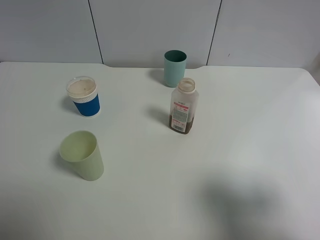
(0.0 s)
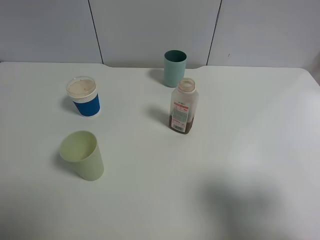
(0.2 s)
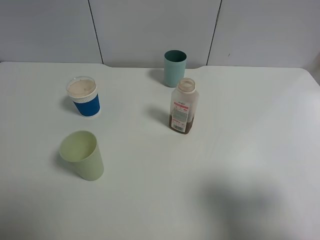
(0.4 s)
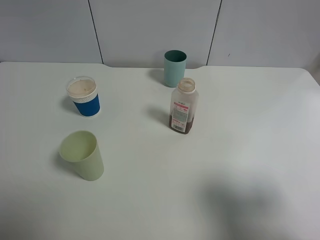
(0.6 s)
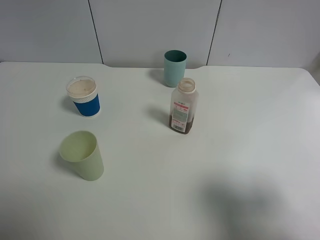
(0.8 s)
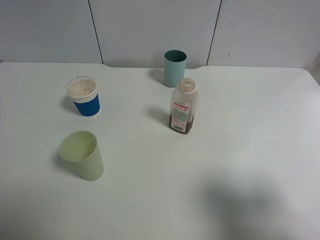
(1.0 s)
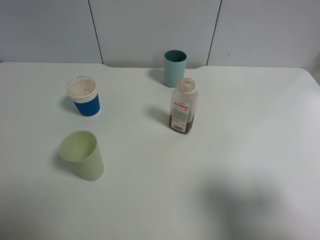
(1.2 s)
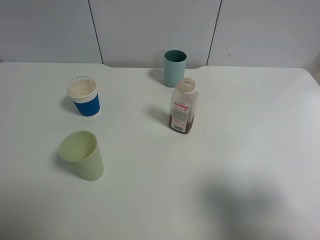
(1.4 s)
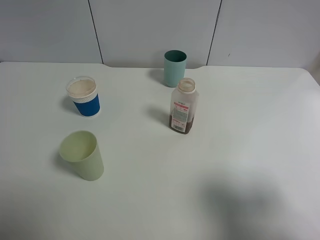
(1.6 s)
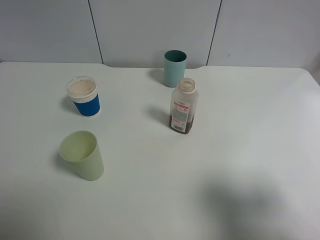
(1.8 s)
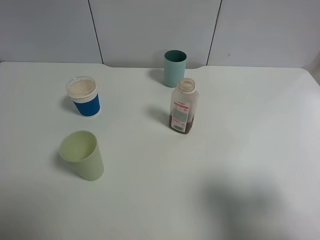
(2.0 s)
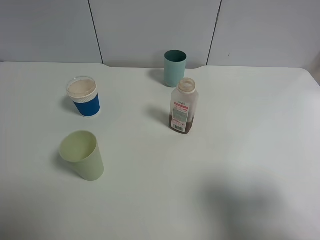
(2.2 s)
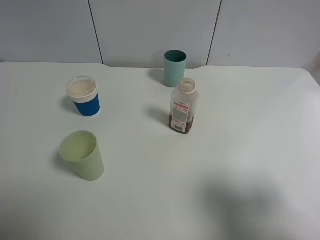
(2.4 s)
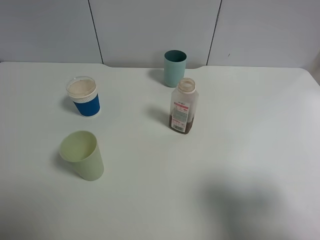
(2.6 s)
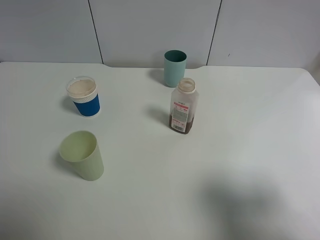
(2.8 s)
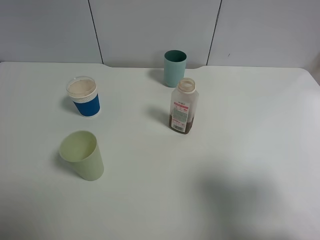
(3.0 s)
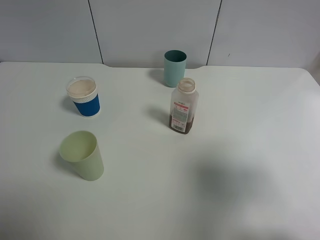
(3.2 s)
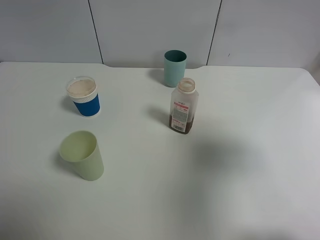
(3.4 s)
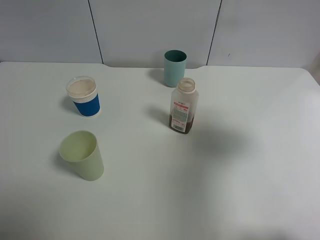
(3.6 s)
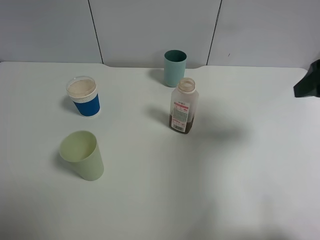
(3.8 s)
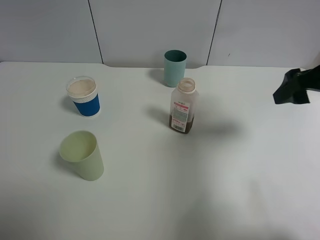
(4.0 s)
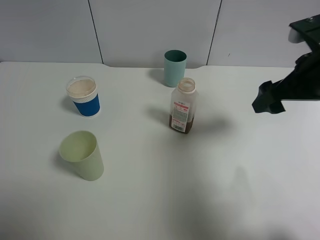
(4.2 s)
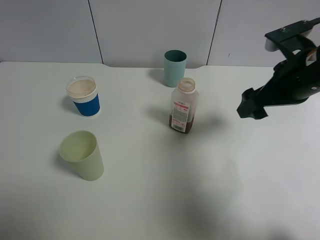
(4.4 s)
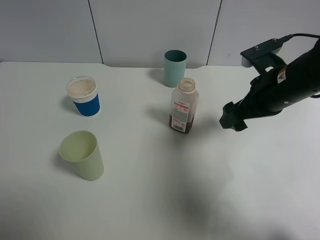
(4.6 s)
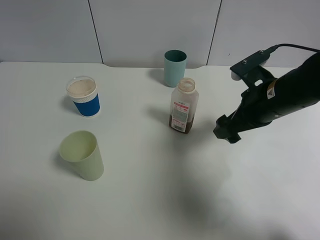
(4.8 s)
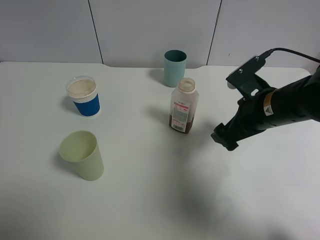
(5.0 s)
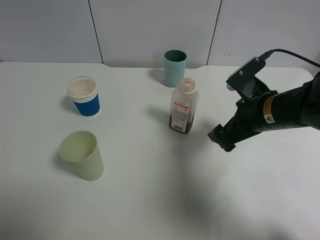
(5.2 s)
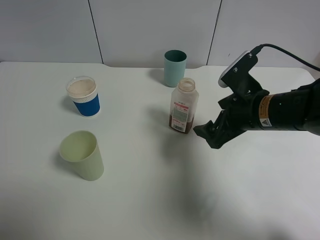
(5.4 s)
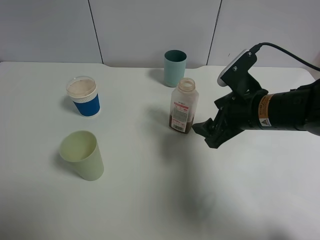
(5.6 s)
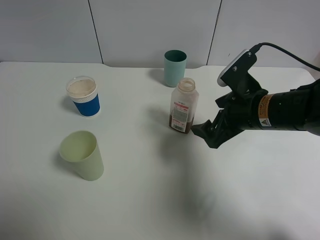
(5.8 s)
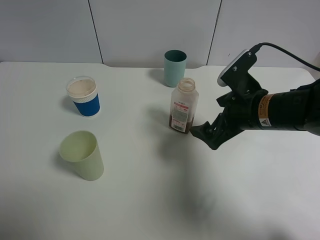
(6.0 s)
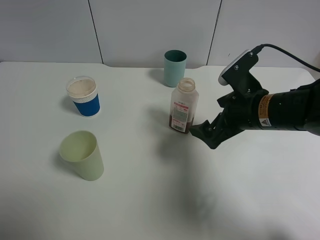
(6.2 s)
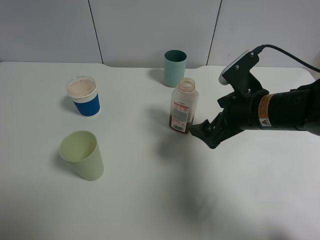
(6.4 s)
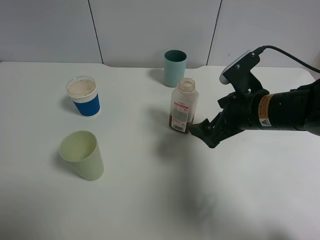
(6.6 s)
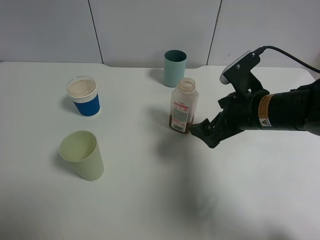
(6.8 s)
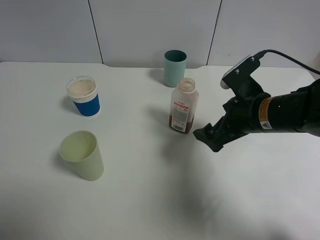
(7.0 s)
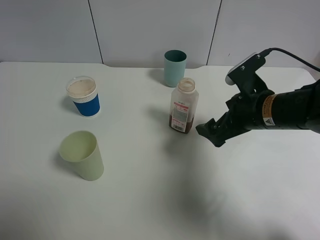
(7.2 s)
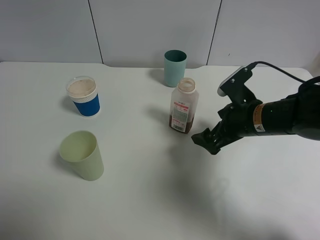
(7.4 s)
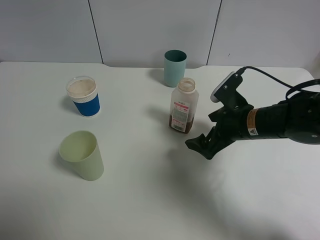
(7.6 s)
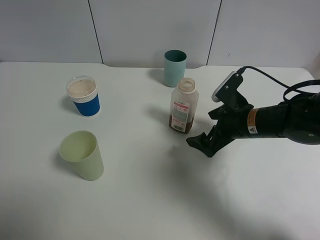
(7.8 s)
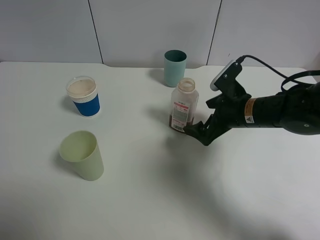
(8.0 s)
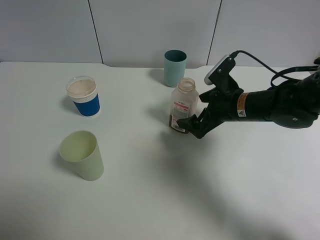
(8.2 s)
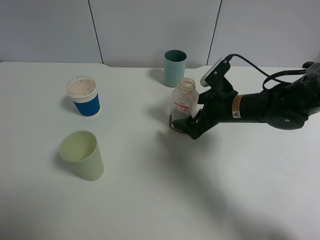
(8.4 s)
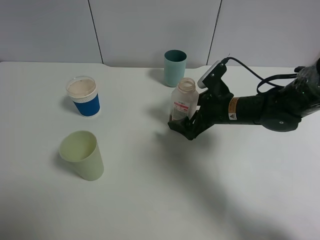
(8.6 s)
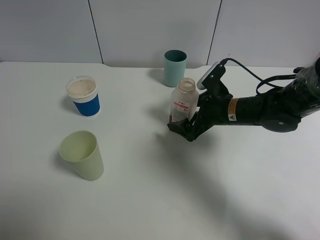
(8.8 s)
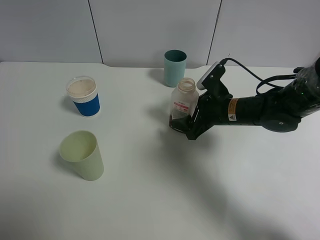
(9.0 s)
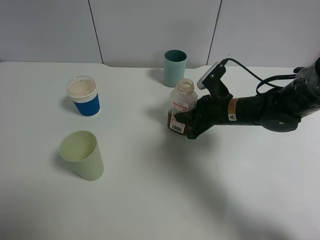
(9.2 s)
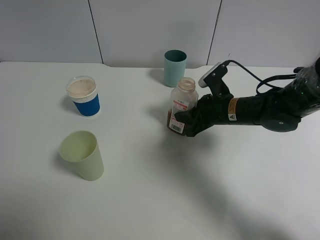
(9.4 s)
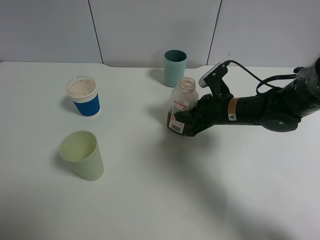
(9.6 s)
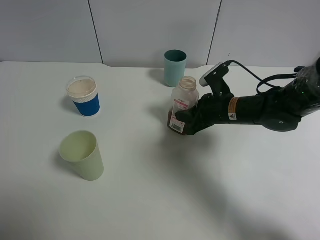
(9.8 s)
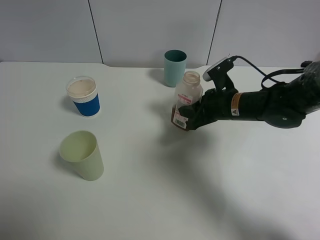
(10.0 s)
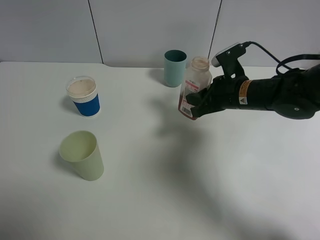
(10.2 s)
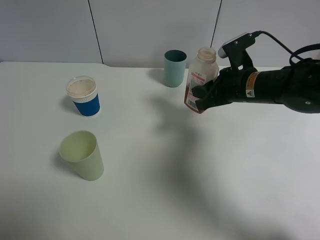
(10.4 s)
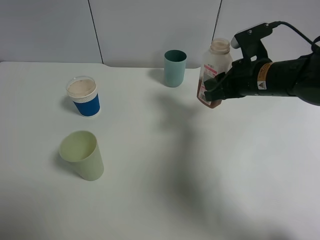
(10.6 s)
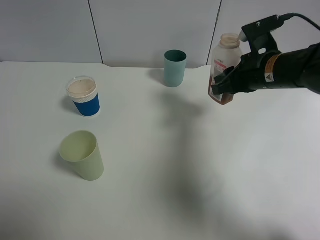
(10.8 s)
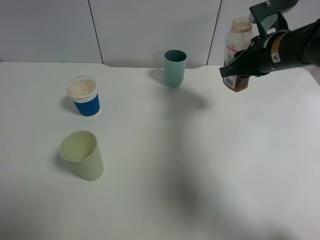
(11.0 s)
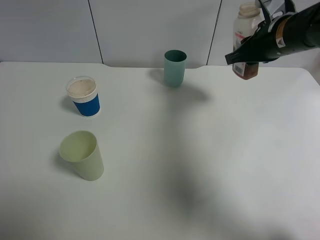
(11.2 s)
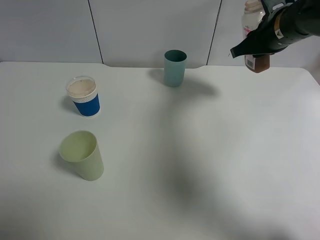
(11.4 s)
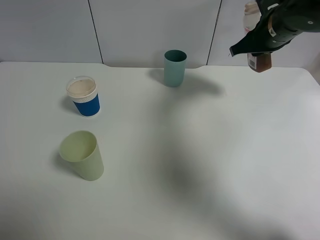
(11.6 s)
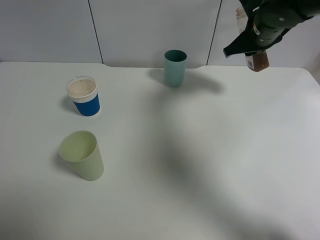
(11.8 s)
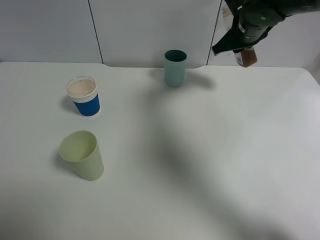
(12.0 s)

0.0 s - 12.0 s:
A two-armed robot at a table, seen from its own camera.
Task of the whole recording: use a gripper to hold the bottle of the drink and pour it into a random cup.
Step, 0.0 s - 9.2 s: Grasp the cranberry juice bottle with the right gripper.
0.0 s - 1.6 s: Both grippers stay put.
3.0 s - 4.4 s: The right gripper shifts some 20 cm forward.
4.4 s - 6.0 s: The right gripper goes approximately 10 cm downward and to the left.
6.0 s - 7.6 s: The right gripper moves downward, roughly 5 cm.
7.6 s - 9.0 s: The right gripper goes some 5 cm forward, and closes its fingers.
9.0 s - 10.4 s: The right gripper heads upward, covering about 5 cm, and closes.
10.4 s - 12.0 s: The right gripper heads forward and upward, covering approximately 15 cm.

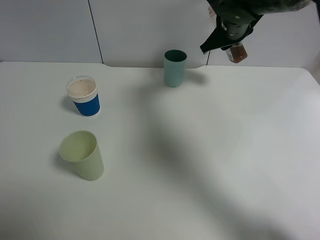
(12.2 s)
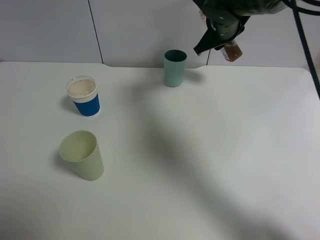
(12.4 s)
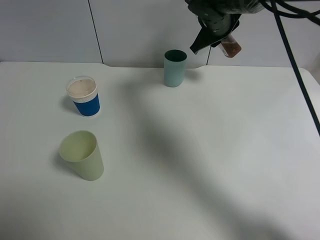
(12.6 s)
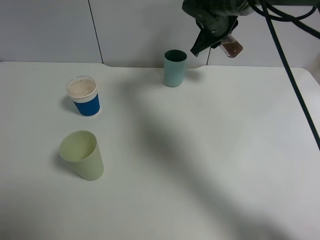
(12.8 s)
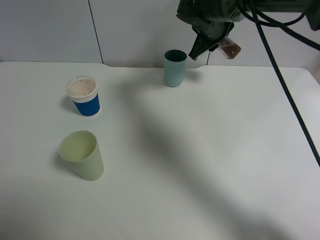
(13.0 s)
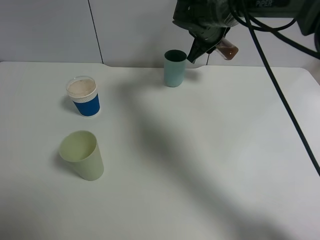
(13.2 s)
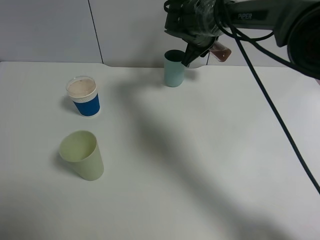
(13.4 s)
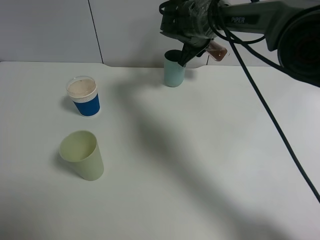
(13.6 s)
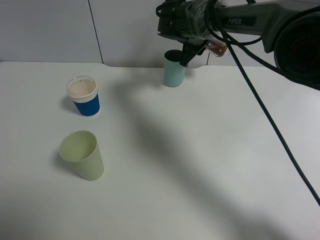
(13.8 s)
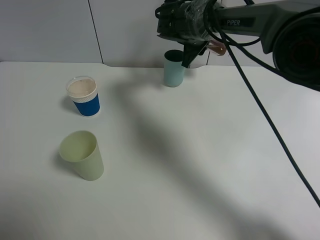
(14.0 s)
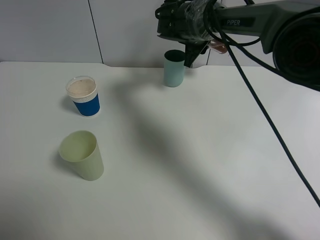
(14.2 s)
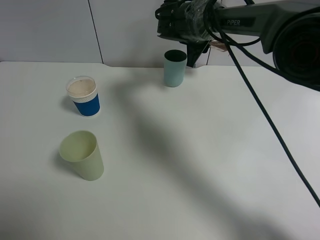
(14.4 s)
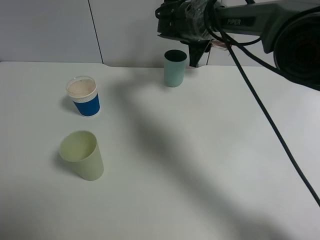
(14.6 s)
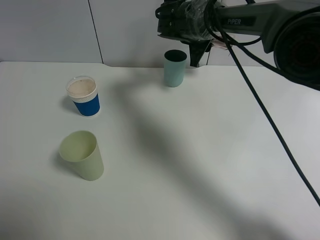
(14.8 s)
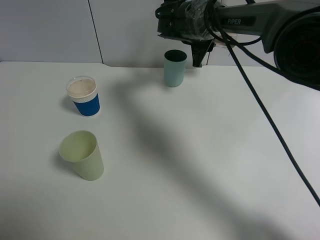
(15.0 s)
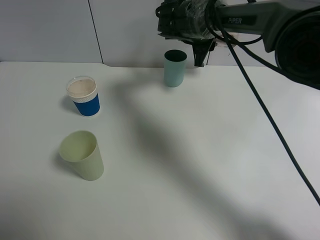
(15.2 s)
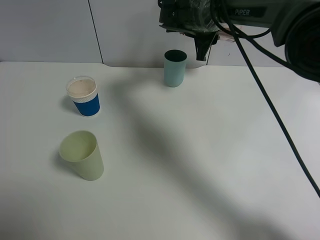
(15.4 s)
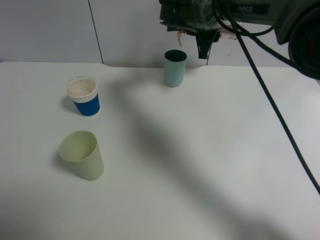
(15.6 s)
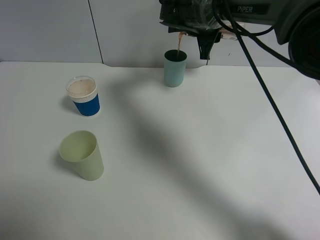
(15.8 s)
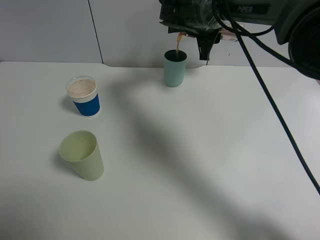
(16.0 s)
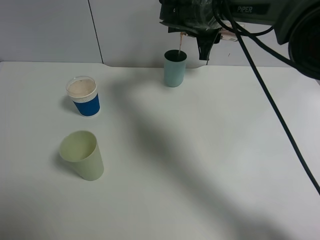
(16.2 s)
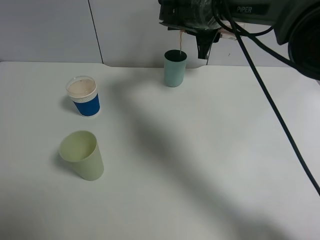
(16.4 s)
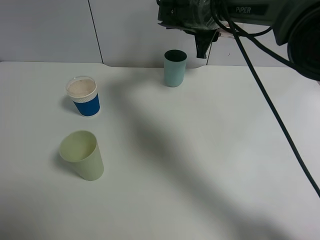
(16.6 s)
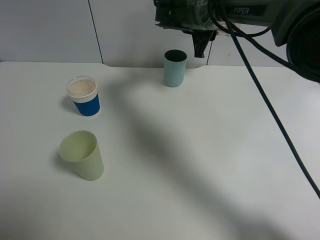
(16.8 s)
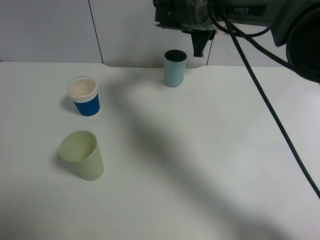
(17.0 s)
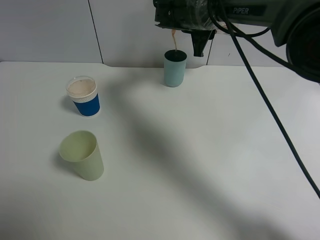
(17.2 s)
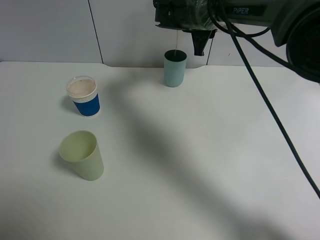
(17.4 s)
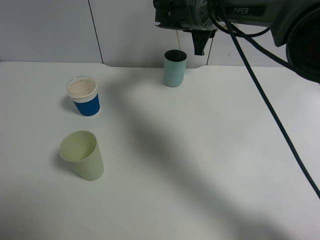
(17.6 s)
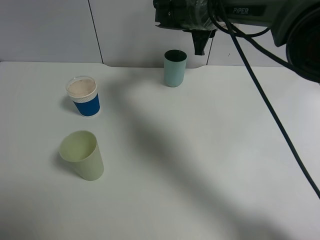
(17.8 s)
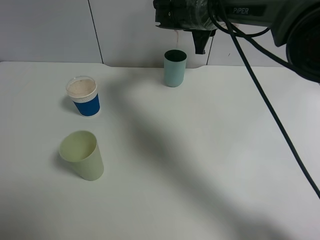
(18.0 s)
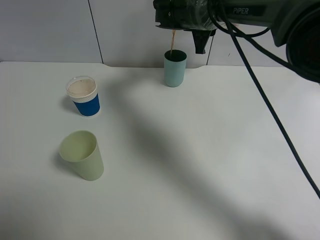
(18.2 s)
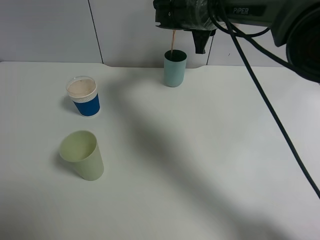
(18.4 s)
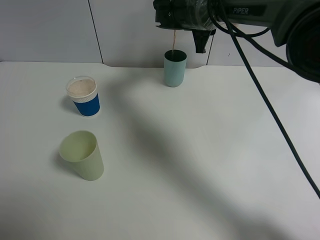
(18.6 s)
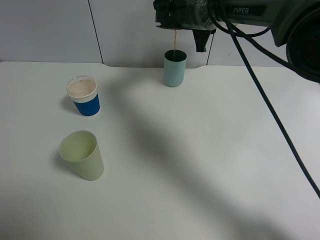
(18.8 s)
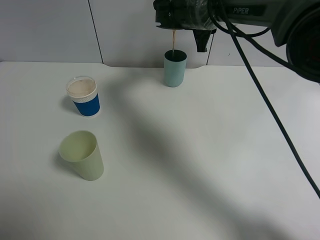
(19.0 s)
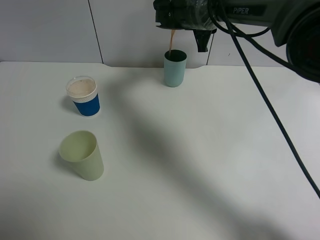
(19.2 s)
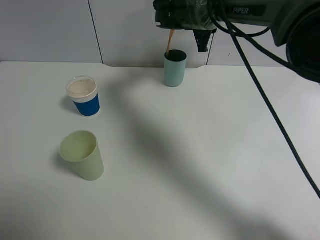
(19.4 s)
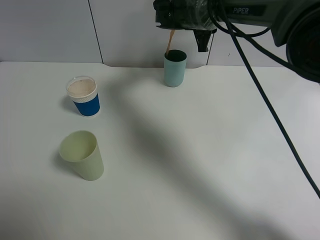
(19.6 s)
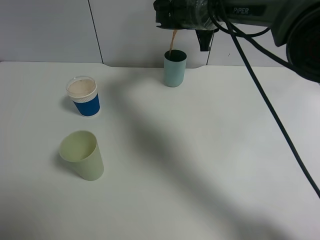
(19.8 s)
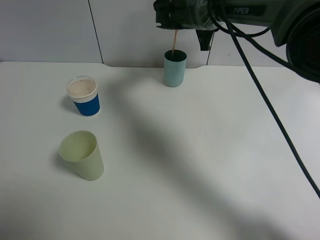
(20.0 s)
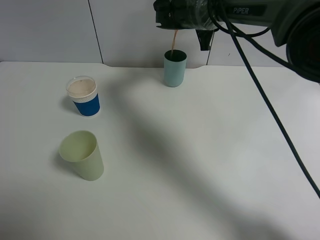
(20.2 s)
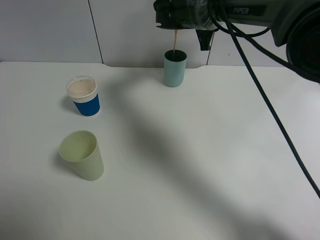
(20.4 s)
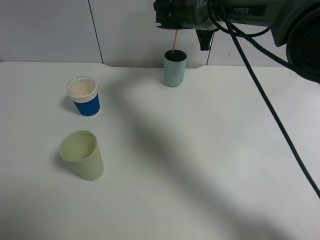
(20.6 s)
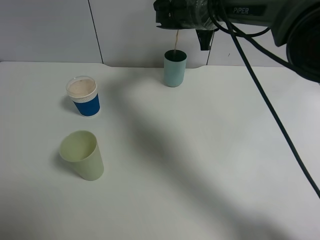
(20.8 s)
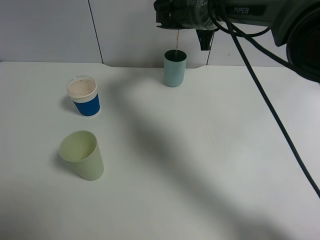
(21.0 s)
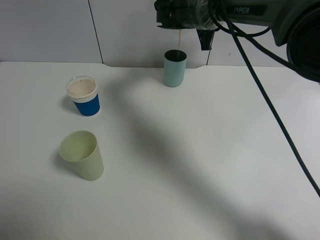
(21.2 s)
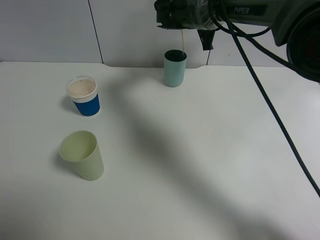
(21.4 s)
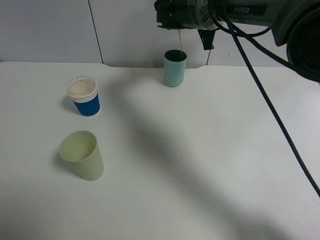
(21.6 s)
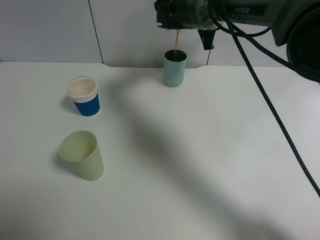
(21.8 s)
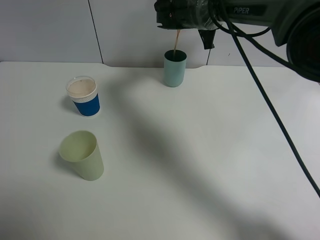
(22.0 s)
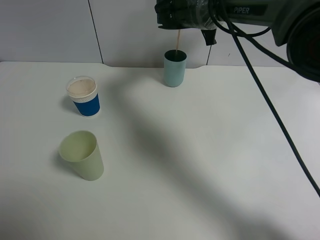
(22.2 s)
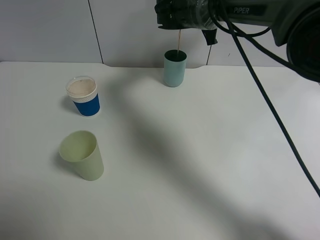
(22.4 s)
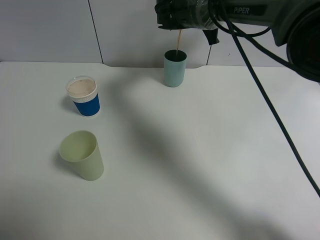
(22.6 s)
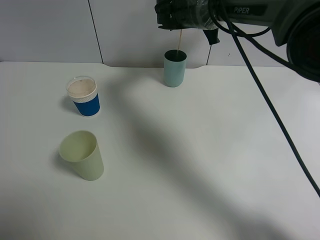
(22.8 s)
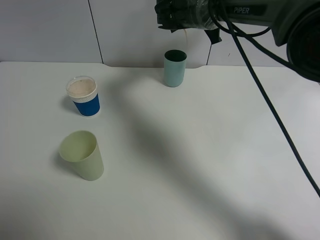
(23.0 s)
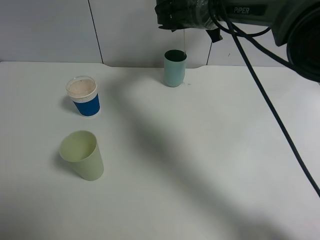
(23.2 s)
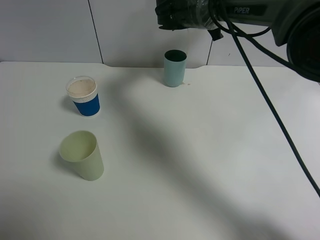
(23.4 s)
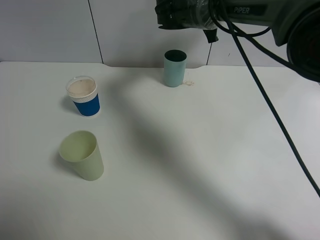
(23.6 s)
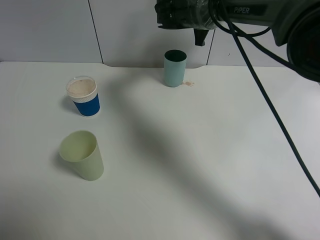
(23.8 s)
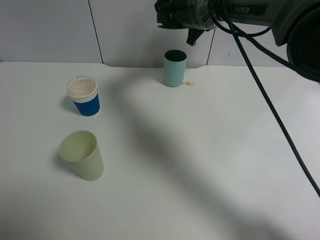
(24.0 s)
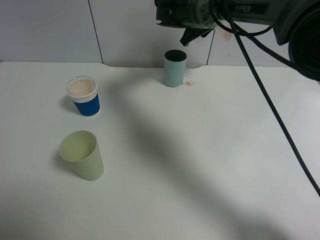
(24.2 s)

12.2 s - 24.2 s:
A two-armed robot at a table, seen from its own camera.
Task of the whole recording: use a gripper to hold the bottle of the drink and pour it into a random cup.
12.2 s - 13.8 s: The right gripper moves to the left, some 5 cm.
13.8 s - 15.2 s: There are only small adjustments of the grippers.
15.2 s - 18.2 s: The grippers move only a little.
19.8 s - 21.2 s: Neither gripper changes place.
